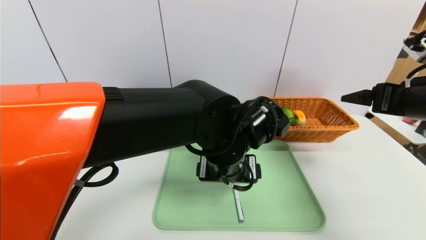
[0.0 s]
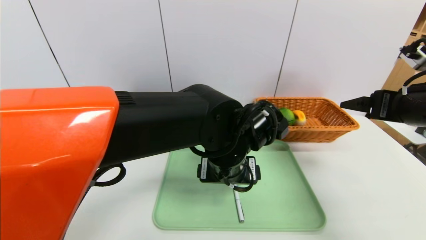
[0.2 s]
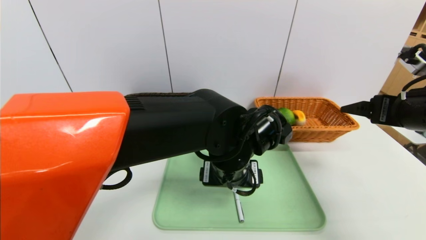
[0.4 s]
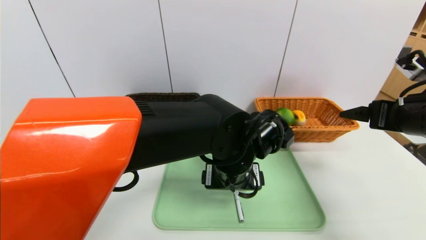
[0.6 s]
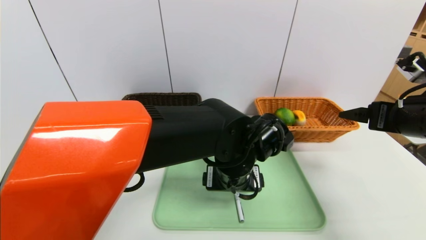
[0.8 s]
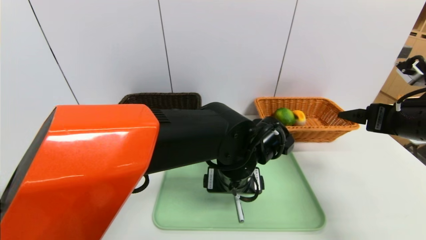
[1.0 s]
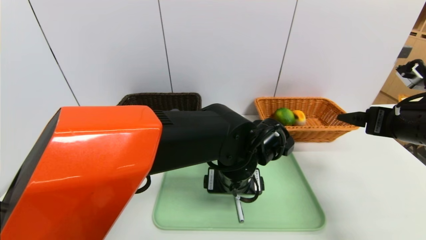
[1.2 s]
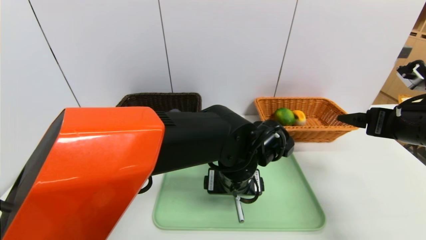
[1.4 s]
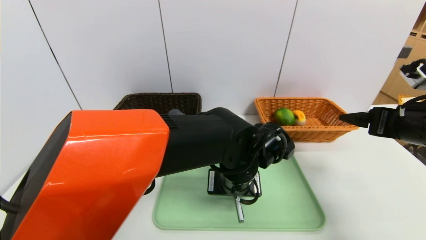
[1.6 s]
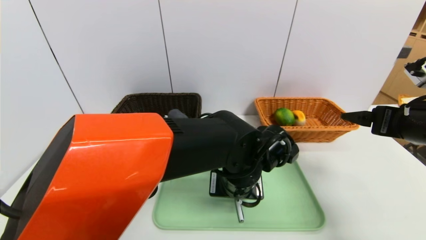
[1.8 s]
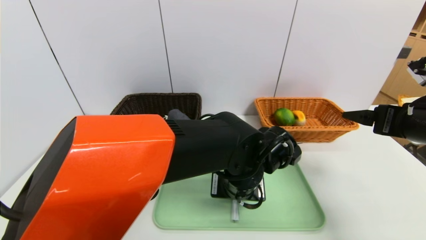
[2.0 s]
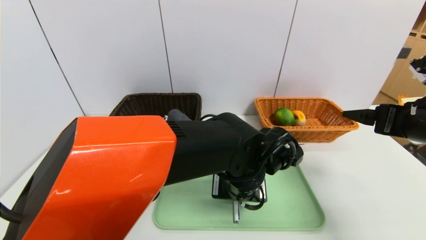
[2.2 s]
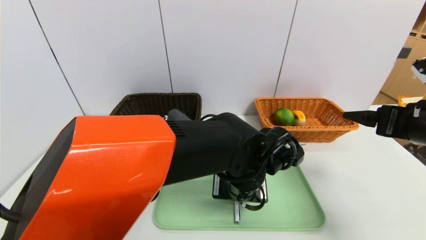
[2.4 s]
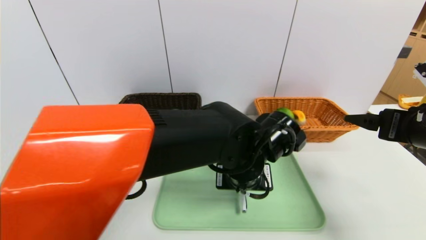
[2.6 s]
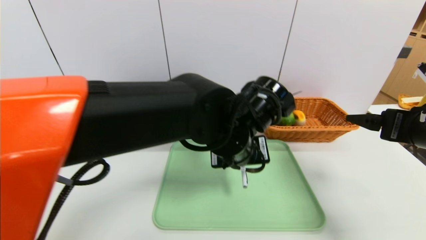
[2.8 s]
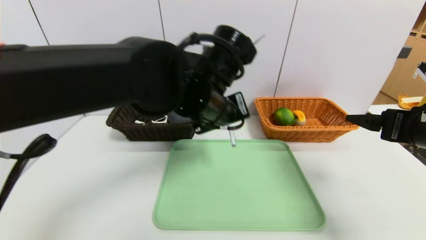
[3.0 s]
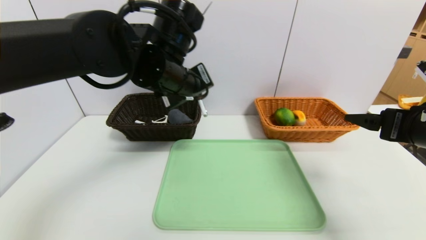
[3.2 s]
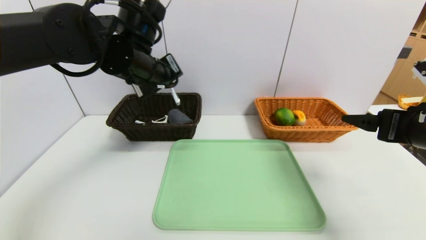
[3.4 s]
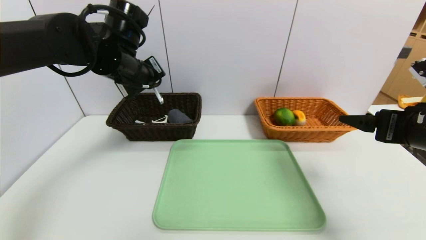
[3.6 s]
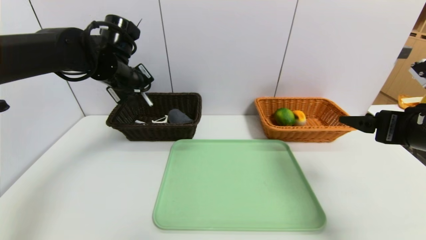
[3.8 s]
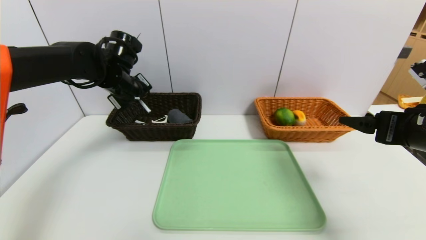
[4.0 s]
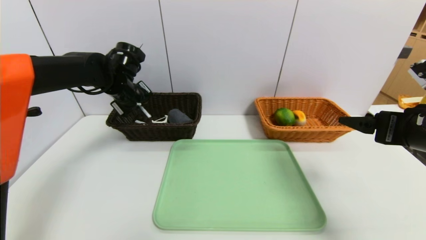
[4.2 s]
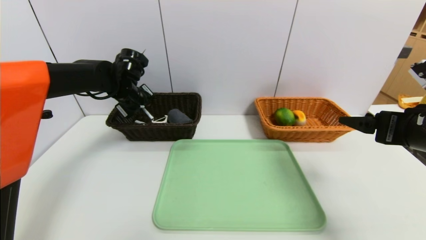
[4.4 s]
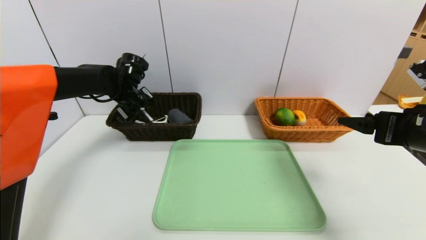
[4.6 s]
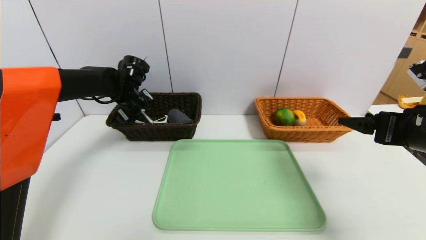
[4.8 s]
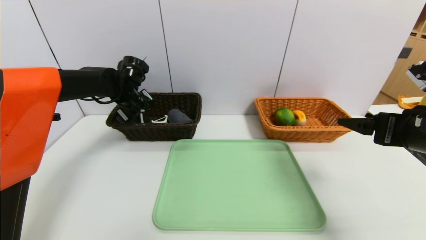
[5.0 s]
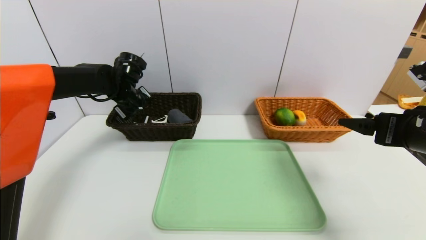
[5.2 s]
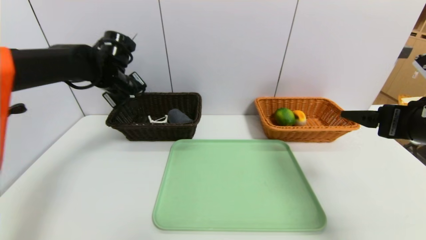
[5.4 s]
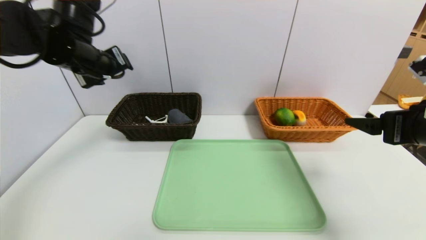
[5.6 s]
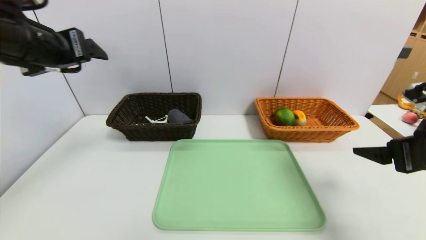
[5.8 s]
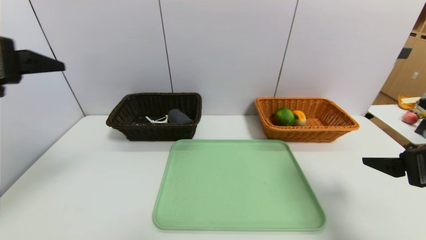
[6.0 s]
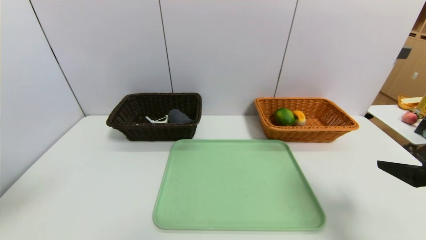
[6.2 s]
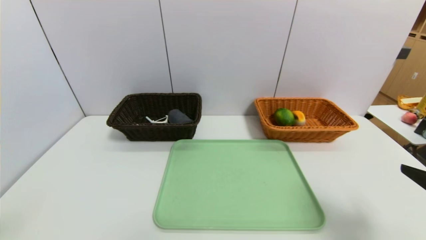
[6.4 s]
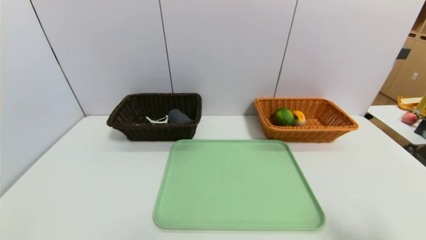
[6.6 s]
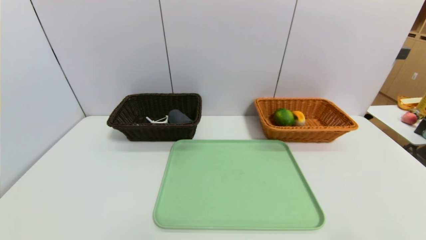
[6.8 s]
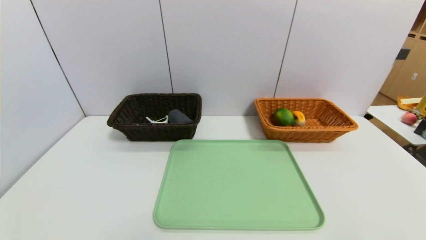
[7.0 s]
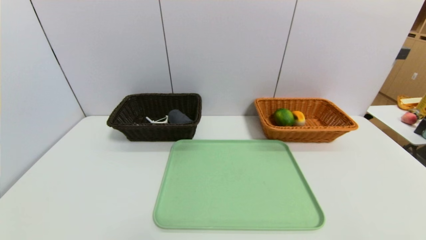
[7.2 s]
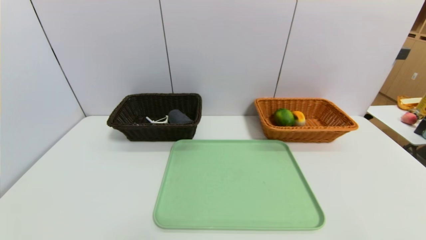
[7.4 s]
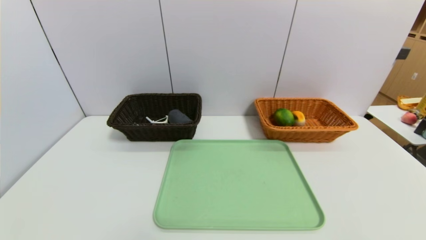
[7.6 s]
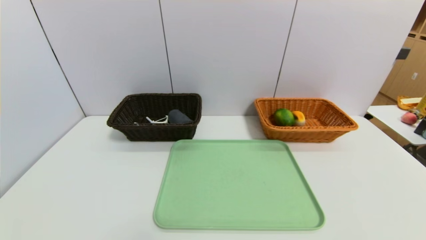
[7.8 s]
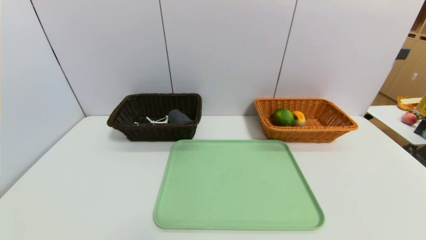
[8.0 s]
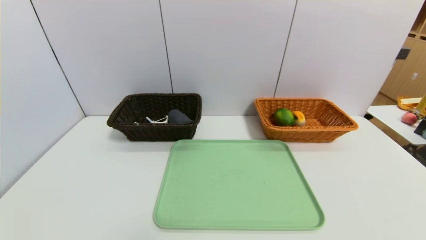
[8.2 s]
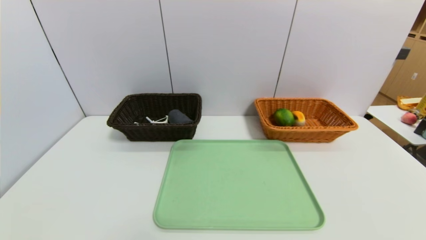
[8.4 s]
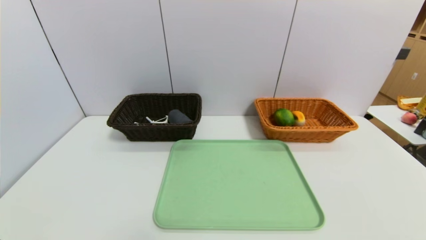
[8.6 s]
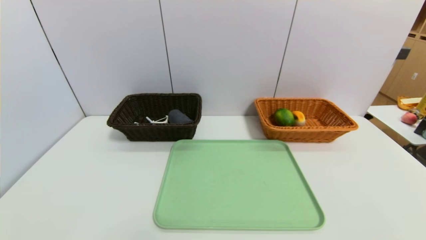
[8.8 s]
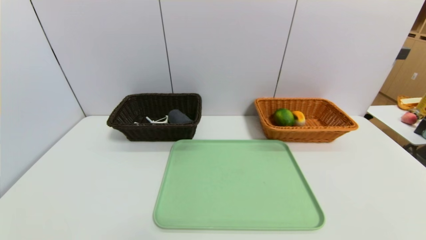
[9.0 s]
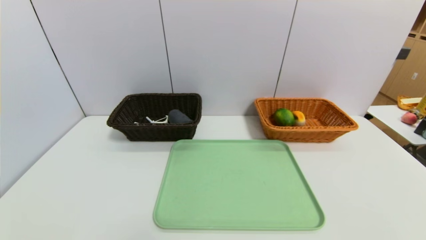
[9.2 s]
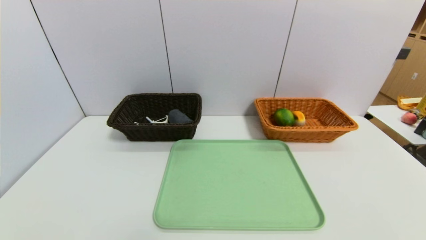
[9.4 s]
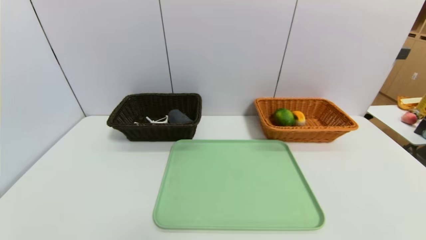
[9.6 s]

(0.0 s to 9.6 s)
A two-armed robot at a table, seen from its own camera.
Task of the whole recording: place the food in the right basket with the right gripper, and place the non food items in the left basket with the left gripper.
Step, 0.0 s - 5.6 s: Grasp the ballpoint pen and put it in the left basket.
0.0 s - 1.6 s: The left gripper moves approximately 5 cm.
1.6 s - 3.2 s: The left gripper shifts approximately 20 cm upward and to the left, and closes.
3.2 s - 4.8 s: The left gripper moves to the left, forward and downward, roughly 25 cm.
4.8 s - 6.4 s: The right gripper is displaced backward by some 10 cm. The left gripper travels backward by approximately 40 cm, and opens.
6.4 s - 8.0 s: The right gripper travels backward by approximately 15 cm.

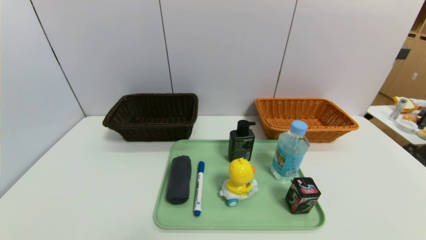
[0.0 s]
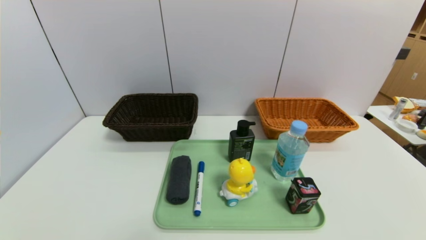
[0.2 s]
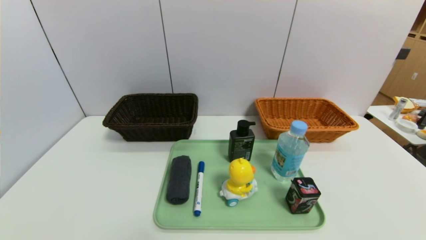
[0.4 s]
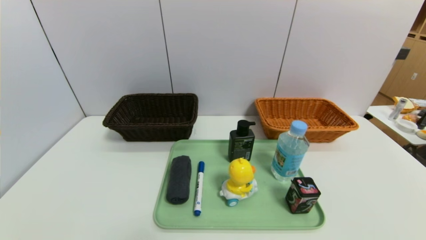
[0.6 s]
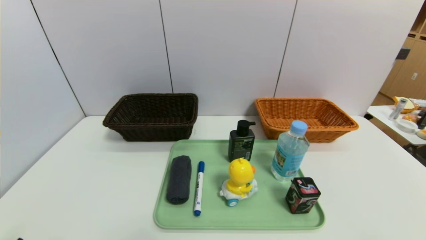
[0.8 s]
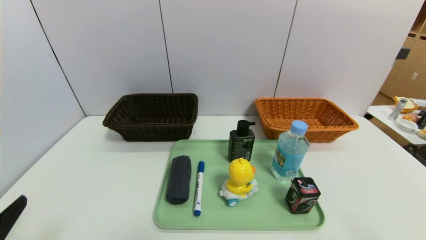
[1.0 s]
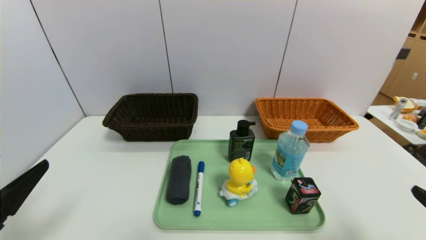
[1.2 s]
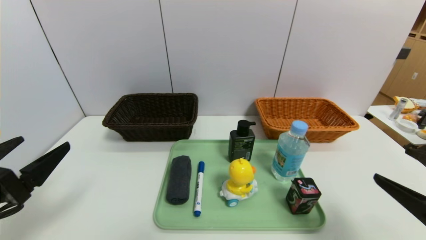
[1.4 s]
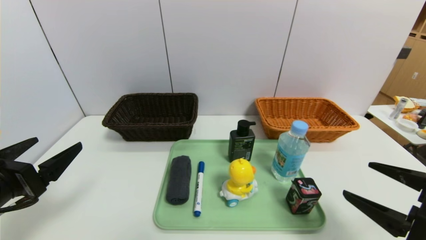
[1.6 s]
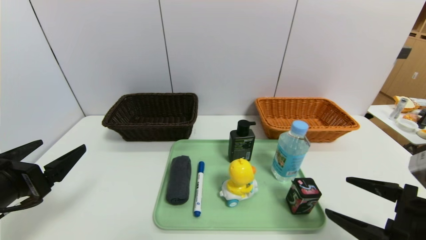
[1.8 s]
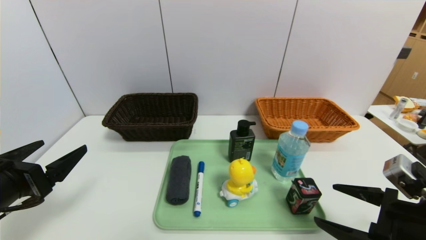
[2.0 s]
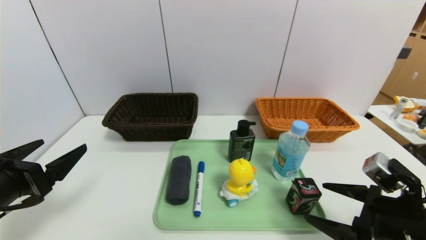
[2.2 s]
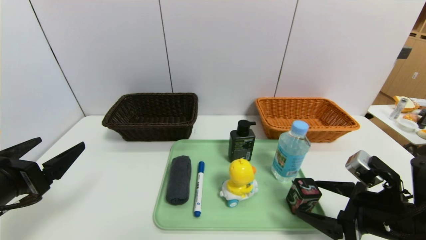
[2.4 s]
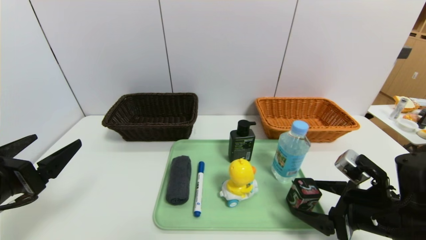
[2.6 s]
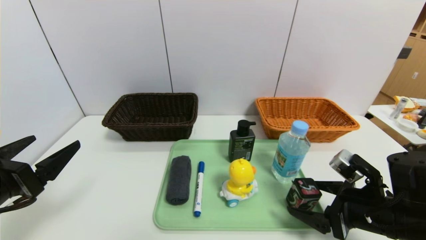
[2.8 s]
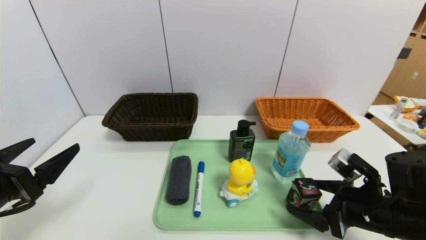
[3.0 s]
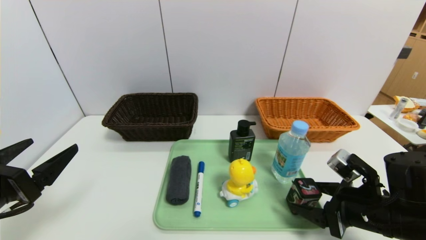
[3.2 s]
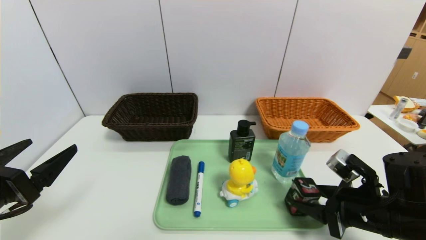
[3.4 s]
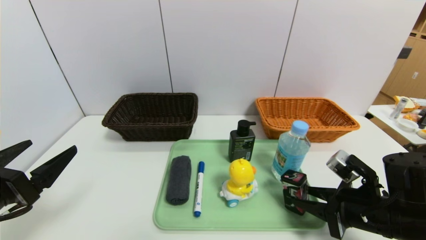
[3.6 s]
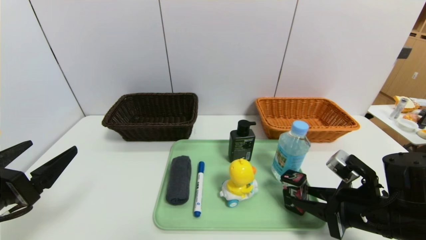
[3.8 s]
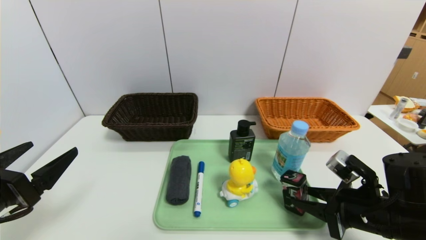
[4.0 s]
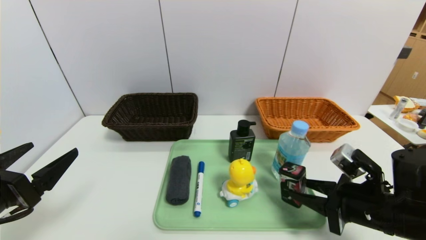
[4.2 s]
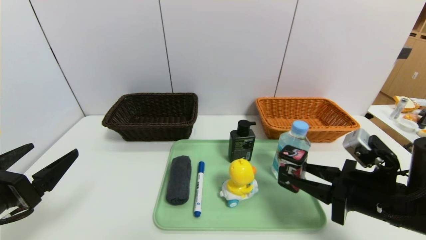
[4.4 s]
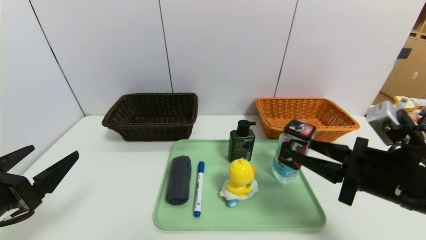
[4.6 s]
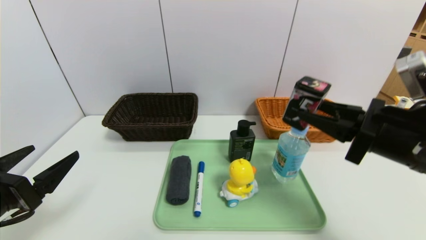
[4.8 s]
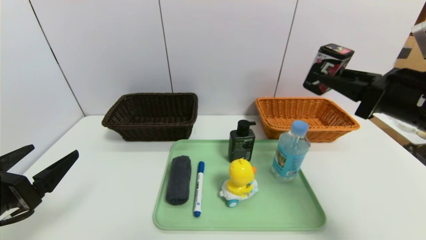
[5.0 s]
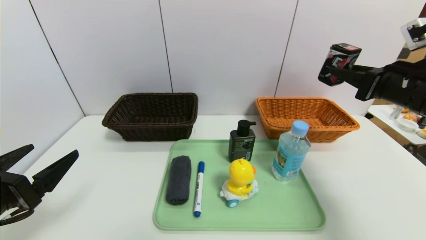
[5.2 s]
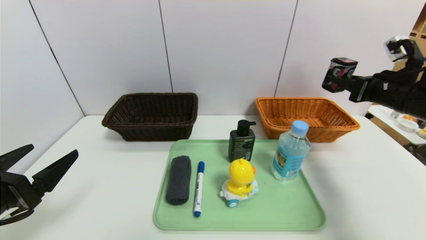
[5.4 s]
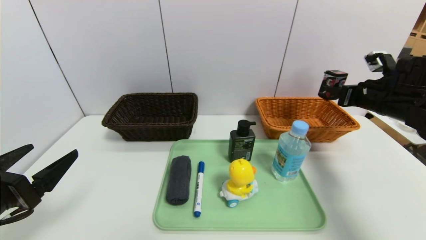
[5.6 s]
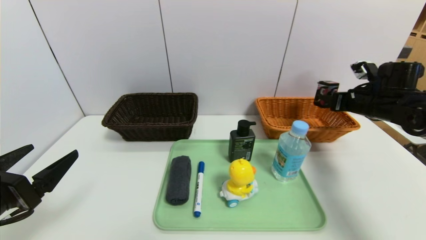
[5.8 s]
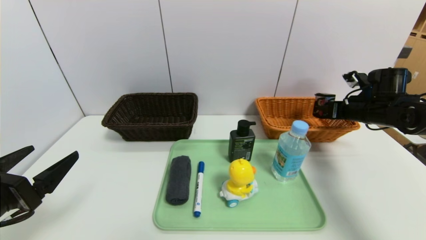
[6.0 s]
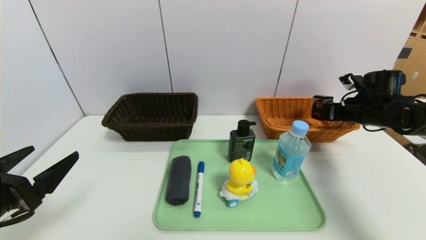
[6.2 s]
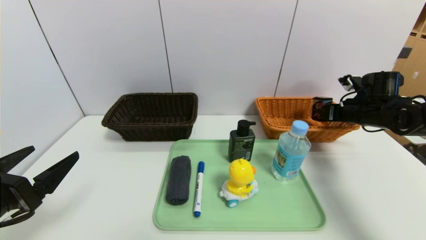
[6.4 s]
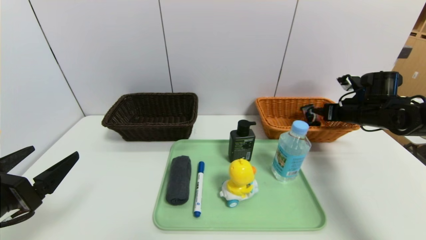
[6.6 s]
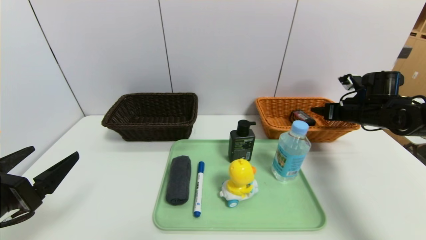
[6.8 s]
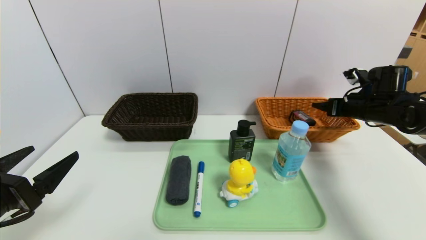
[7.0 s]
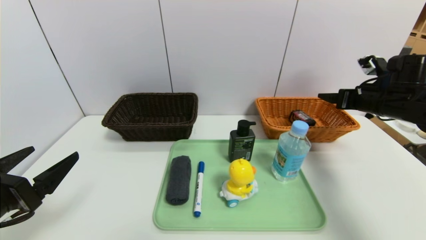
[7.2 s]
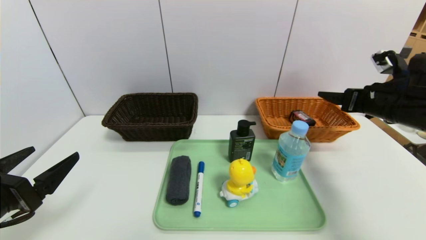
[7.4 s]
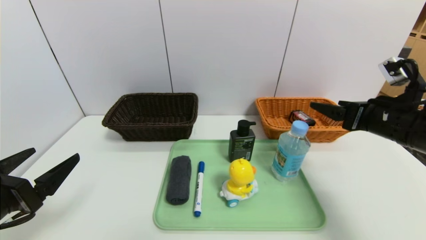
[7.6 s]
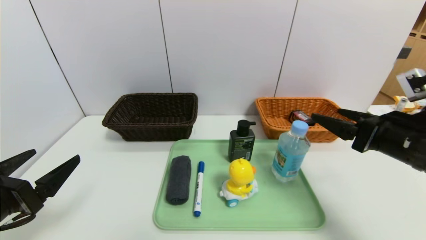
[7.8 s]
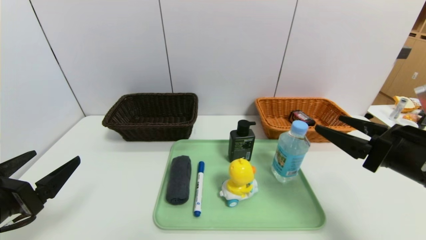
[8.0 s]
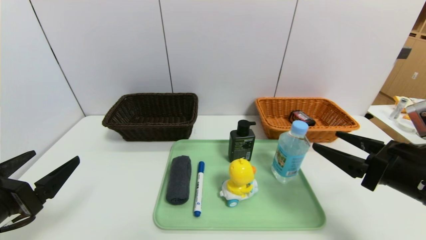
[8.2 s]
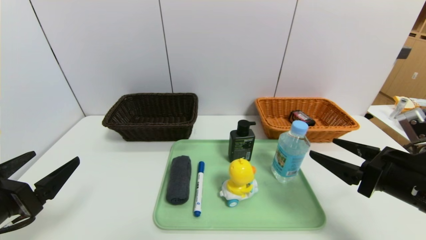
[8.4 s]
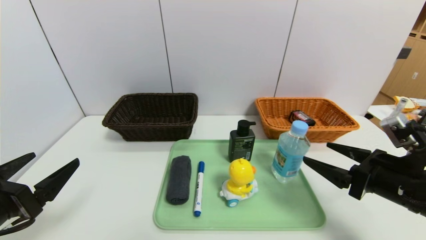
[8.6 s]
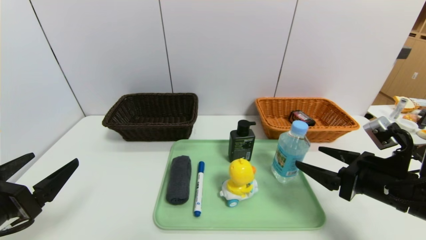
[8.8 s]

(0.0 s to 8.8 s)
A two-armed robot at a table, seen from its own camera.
Task of the whole recording: place the food in the right basket with the right gripper, and place the non food items in the left basket with the left gripper.
Step, 0.0 s - 6.8 s: Grasp the square chewing gum and put it in the left basket.
0.0 s - 1.4 s: The two grippers go approximately 15 cm upward and forward.
1.4 s - 3.0 s: The right gripper moves forward, downward and to the left, approximately 15 cm.
3.0 s - 4.4 s: The right gripper closes up.
4.4 s - 5.8 s: The right gripper heads forward and to the right, covering roughly 25 cm.
5.8 s - 7.4 s: The right gripper moves backward, roughly 10 cm, and opens.
7.4 s - 8.8 s: The right gripper goes about 15 cm backward, downward and to the left.
